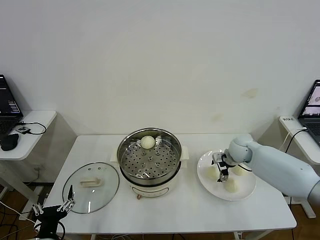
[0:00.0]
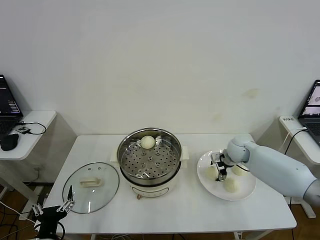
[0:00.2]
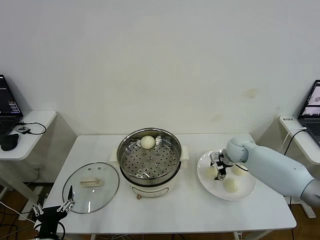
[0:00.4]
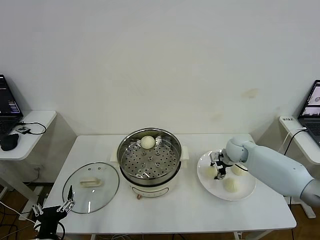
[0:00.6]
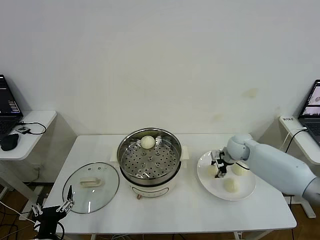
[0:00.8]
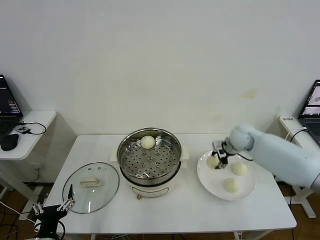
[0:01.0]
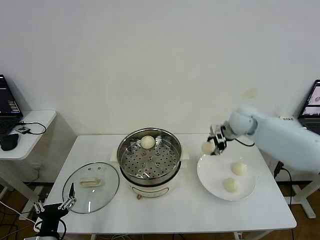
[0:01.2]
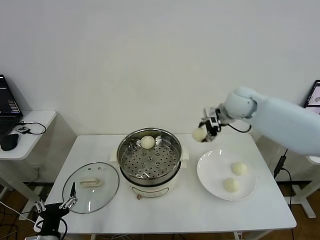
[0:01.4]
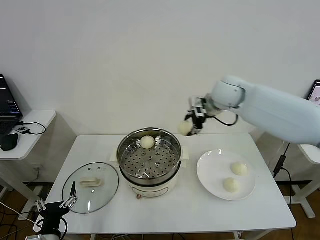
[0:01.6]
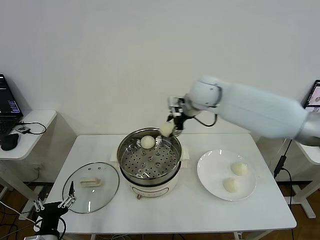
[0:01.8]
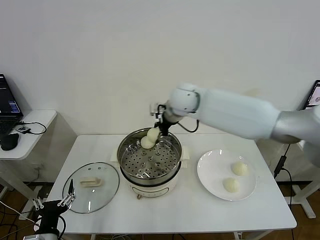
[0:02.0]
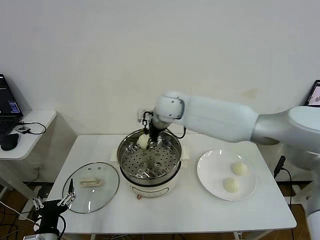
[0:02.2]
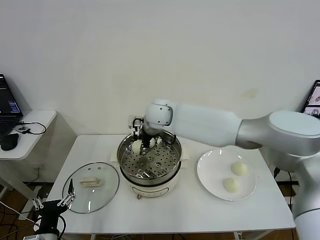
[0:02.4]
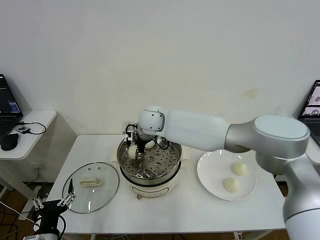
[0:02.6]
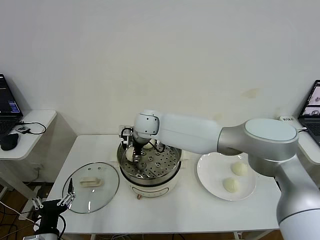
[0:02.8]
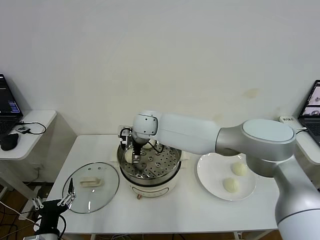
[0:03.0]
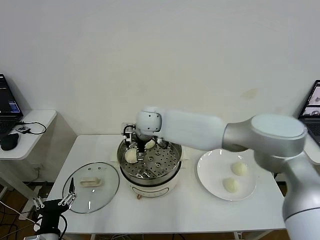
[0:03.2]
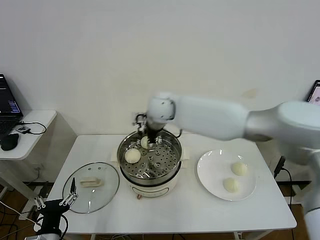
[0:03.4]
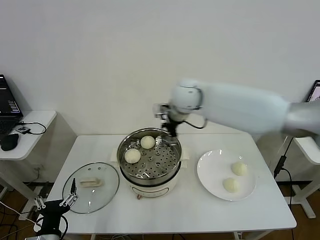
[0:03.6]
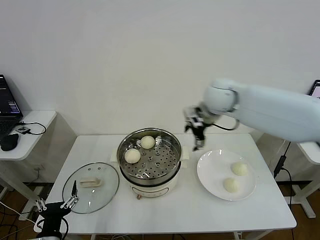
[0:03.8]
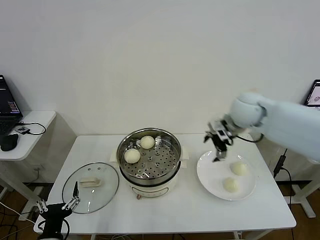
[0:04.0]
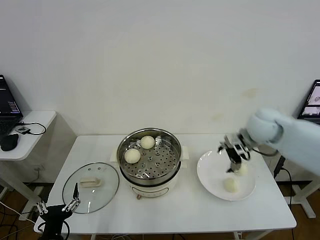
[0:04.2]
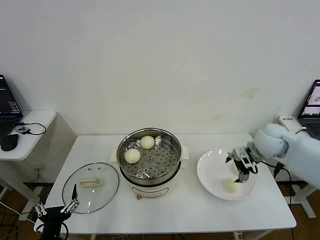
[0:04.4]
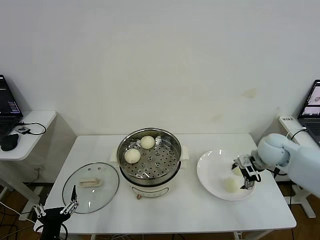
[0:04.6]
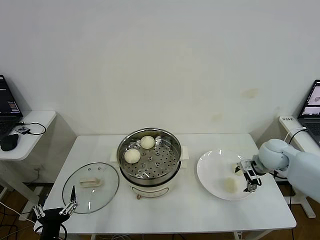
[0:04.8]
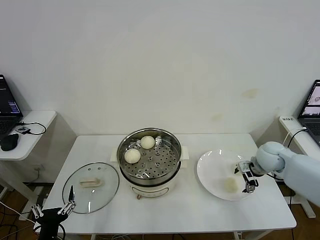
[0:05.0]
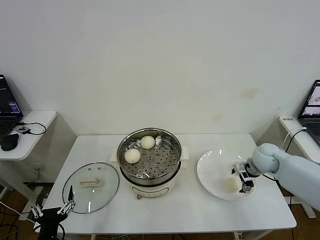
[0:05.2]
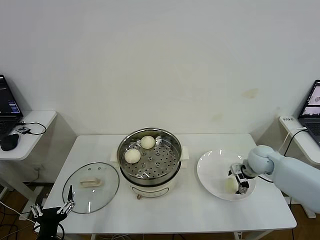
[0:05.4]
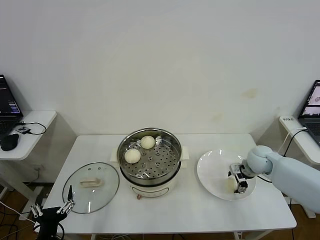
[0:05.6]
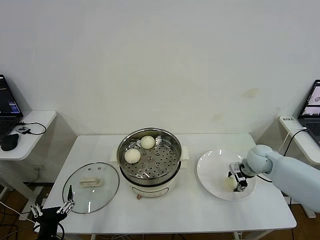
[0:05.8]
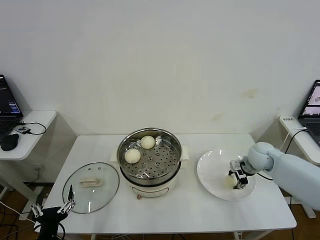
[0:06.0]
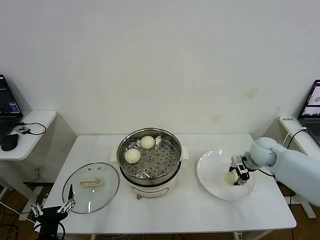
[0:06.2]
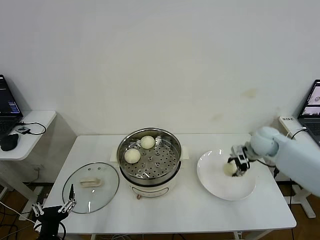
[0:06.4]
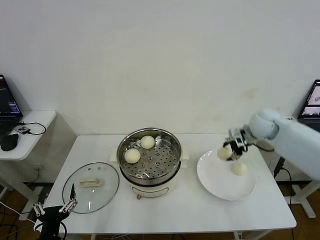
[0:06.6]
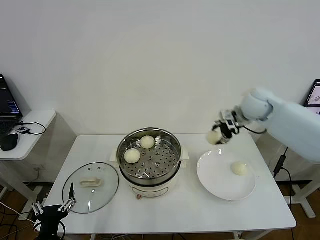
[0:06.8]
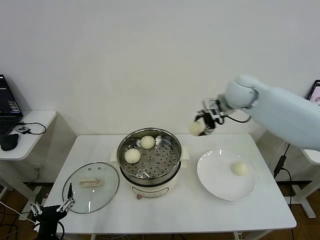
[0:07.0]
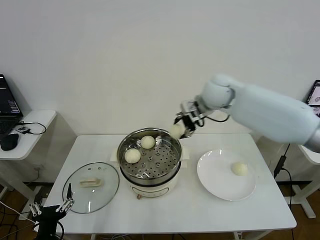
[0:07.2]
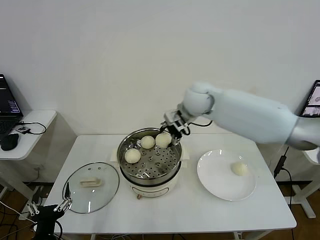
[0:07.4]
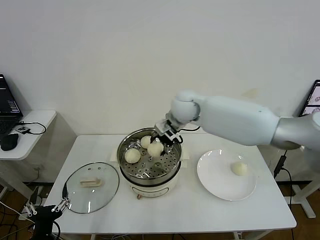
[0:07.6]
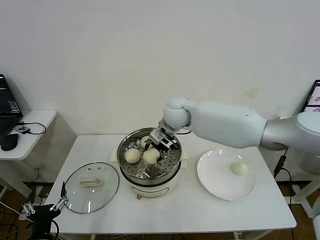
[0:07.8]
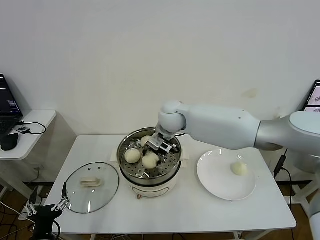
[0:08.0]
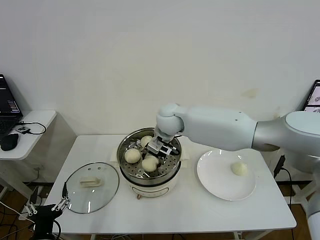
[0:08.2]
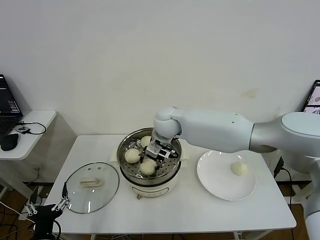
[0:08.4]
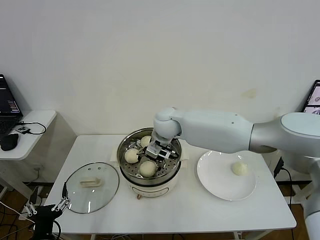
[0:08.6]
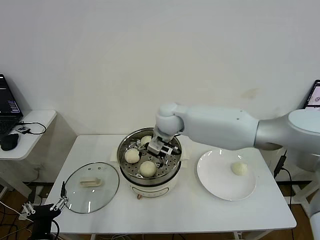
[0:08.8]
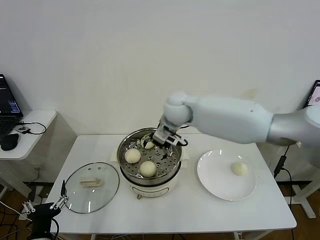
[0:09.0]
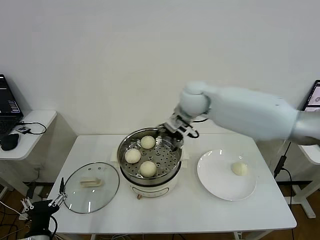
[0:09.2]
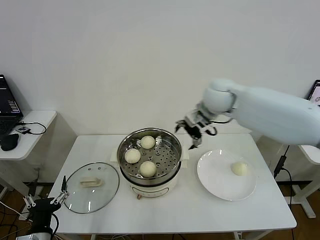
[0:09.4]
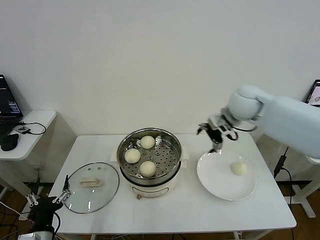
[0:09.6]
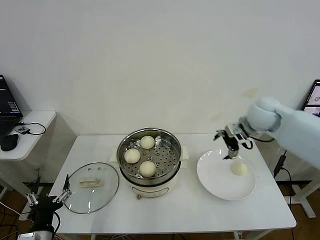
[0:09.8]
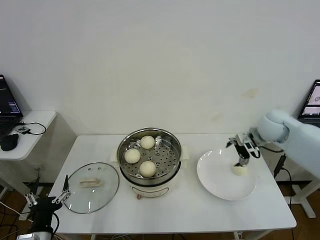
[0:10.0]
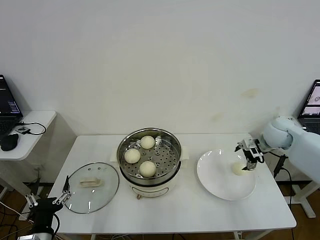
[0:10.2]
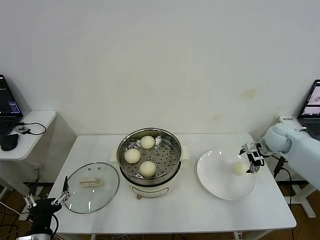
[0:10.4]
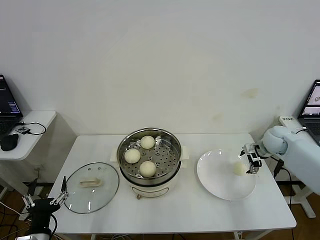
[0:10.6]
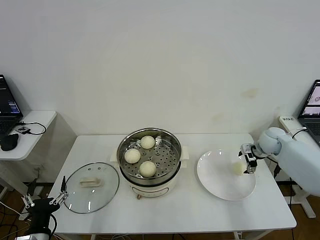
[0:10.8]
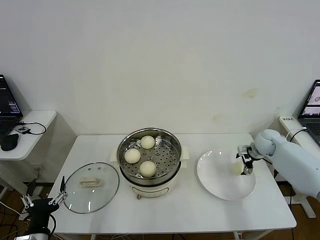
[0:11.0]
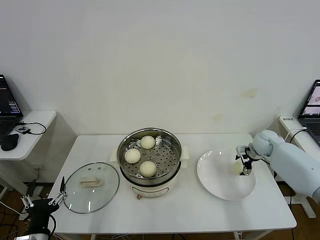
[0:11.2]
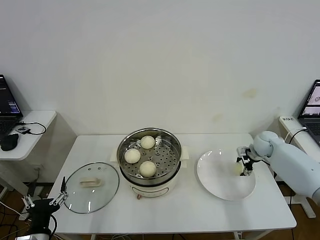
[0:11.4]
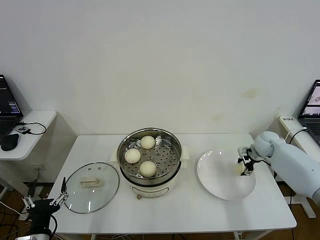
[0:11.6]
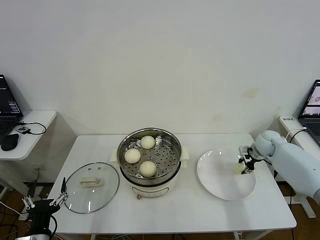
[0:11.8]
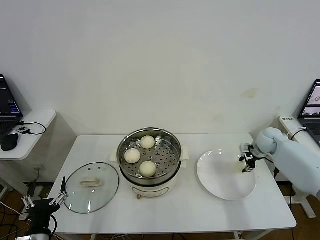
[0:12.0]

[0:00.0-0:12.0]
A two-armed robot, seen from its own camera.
Step, 0:00.6 to 0:03.2: Place the baozi on the steamer with right gripper.
Step, 0:03.4 to 0:05.8: Grasp the baozi in the plate with right gripper.
Step, 0:06.0 to 0:08.6: Place the baozi on the steamer with right gripper.
Step, 0:08.8 to 0:11.6: Grasp the baozi in the plate with right gripper.
0:00.0 to 0:01.6: The right gripper heads upward and to the left, covering about 25 cm, and closes.
0:01.6 to 0:03.0: The right gripper is displaced to the left and downward by some 25 cm, and opens.
0:03.0 to 0:04.4: The right gripper travels to the right by some 40 cm.
0:04.4 to 0:06.0: The right gripper shifts approximately 10 cm downward, and closes.
0:06.0 to 0:07.6: The right gripper moves to the left and upward, roughly 35 cm.
0:07.6 to 0:09.0: The right gripper opens its fingers.
0:09.0 to 0:10.4: The right gripper travels to the right by roughly 35 cm.
0:10.4 to 0:12.0: The right gripper goes some 5 cm downward, and closes.

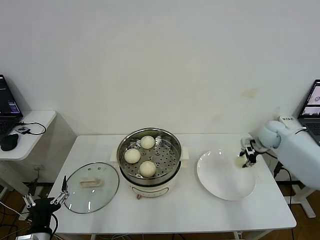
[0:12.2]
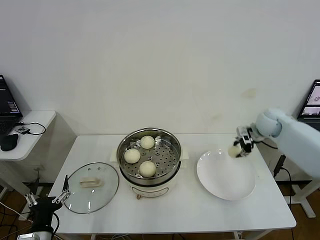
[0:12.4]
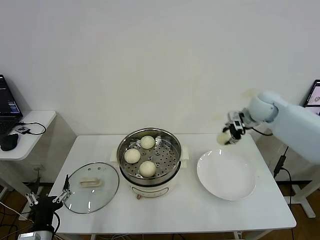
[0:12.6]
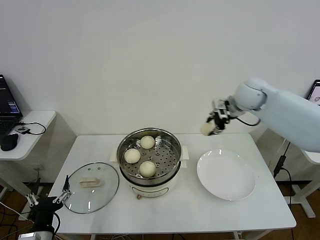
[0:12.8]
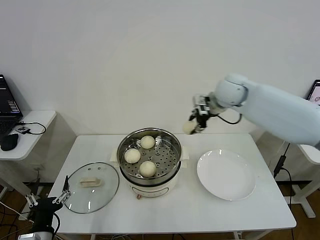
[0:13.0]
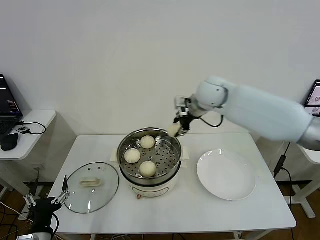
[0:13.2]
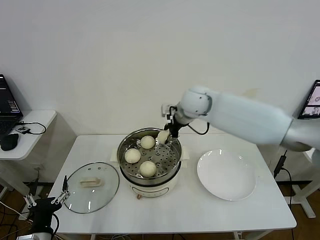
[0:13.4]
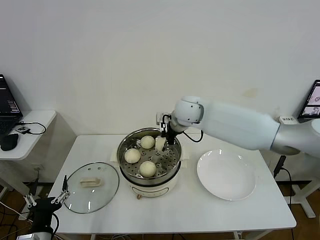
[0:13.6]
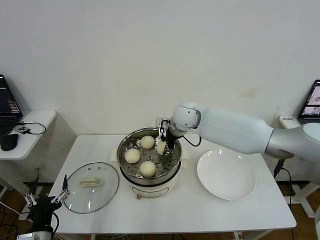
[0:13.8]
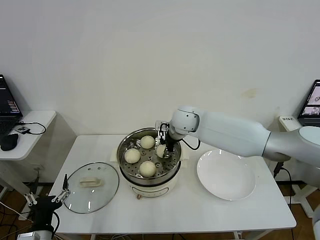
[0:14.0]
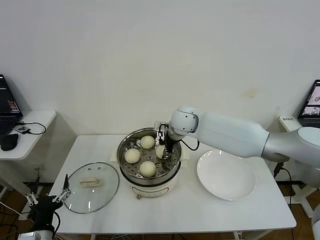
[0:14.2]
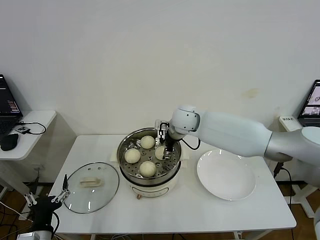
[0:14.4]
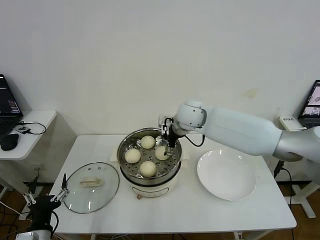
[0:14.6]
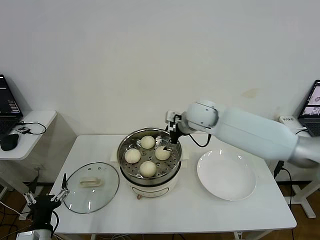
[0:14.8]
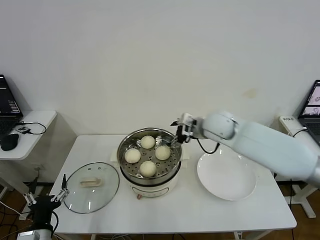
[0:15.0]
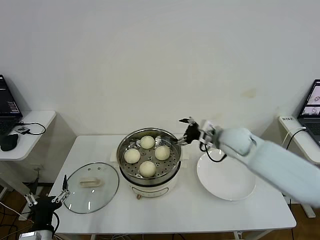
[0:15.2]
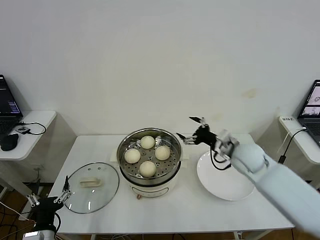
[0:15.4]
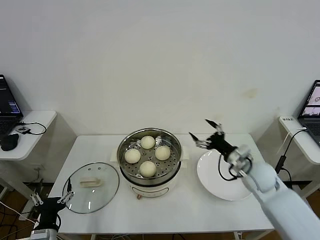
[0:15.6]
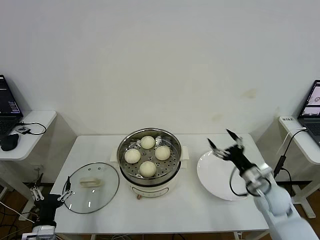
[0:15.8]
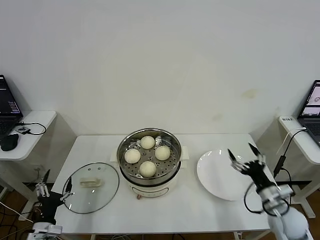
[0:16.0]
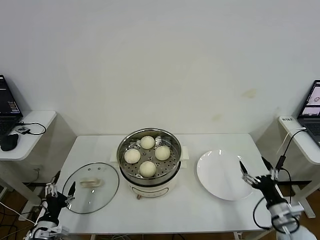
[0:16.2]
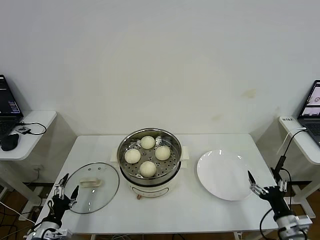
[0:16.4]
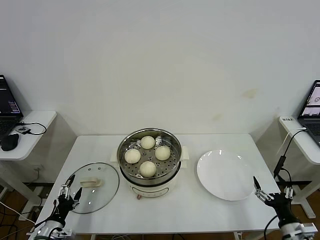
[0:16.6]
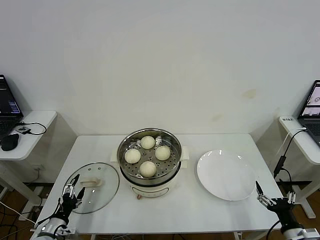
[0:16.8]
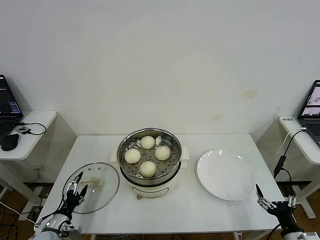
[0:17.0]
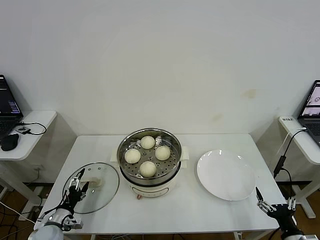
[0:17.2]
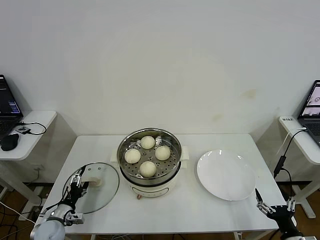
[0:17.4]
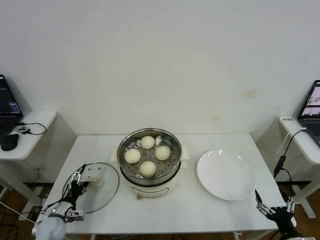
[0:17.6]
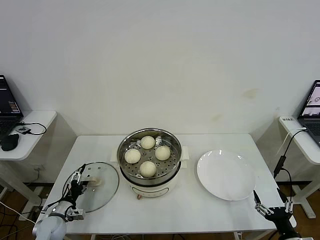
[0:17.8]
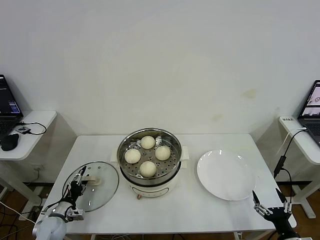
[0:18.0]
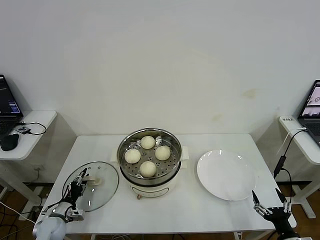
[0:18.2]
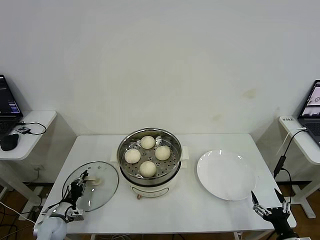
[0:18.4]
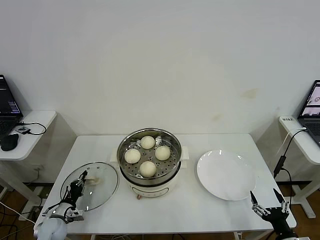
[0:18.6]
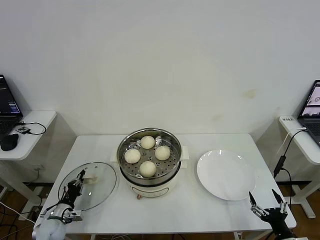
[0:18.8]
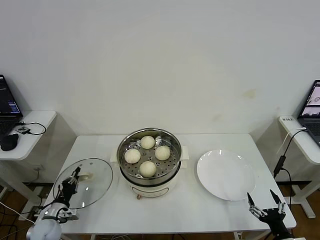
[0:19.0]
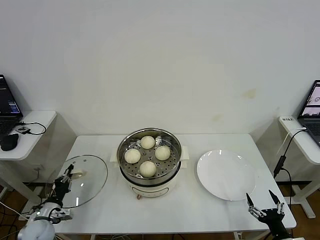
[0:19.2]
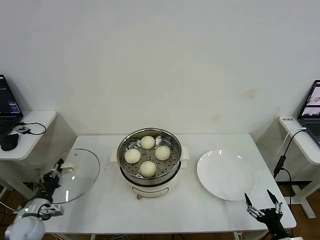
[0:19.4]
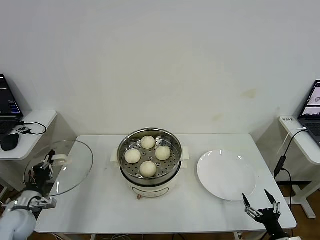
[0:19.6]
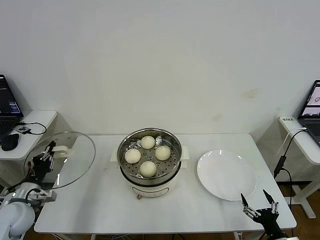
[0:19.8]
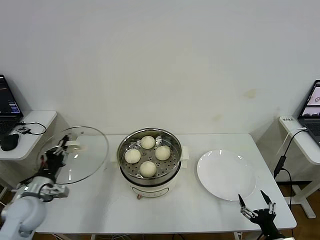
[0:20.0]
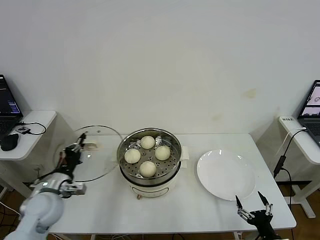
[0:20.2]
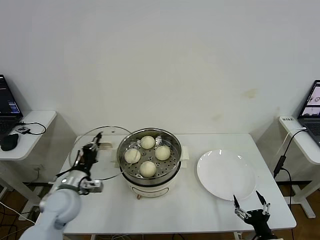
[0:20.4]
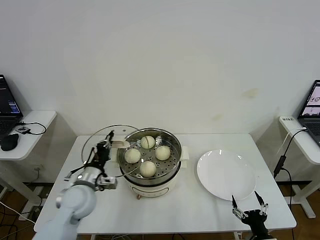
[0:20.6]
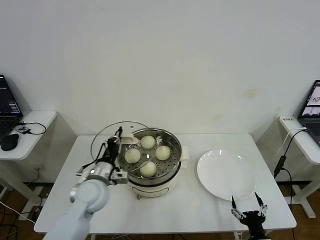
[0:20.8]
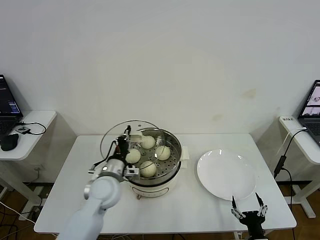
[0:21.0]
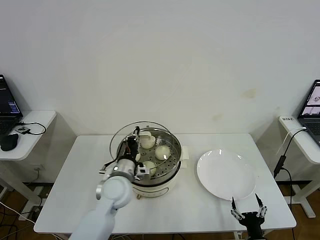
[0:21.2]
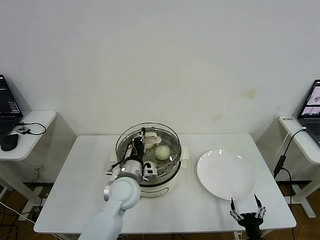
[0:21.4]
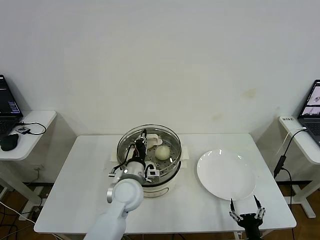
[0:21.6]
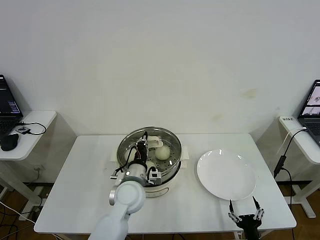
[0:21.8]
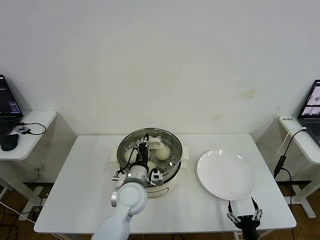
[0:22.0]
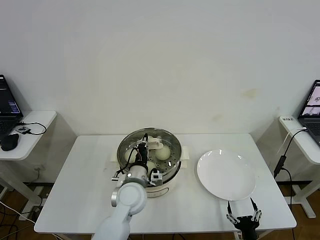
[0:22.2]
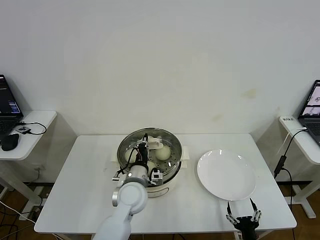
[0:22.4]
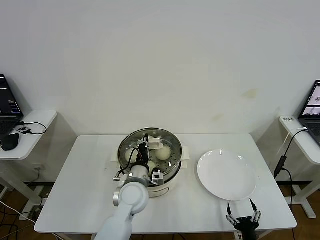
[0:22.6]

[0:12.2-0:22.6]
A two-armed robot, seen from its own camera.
Step, 0:12.2 to 0:14.4: Place the baozi on the steamer with right gripper.
Step, 0:14.6 to 0:18.6: Grasp the pot lid with left gripper.
0:12.2 to 0:13.6: The right gripper shifts approximately 35 cm to the left.
0:13.6 to 0:15.2: The right gripper heads to the right, backward and downward, covering about 15 cm, and opens up.
0:15.2 to 0:16.6: The right gripper moves backward, downward and to the right, approximately 40 cm, while the left gripper travels downward, to the left and forward by some 10 cm.
0:16.6 to 0:18.2: The left gripper is displaced forward by approximately 10 cm, and closes up.
0:18.2 to 0:19.6: The left gripper heads upward, covering about 10 cm, and closes its fingers.
0:19.6 to 0:21.2: The right gripper shifts approximately 10 cm to the left. Meanwhile the left gripper travels to the right by some 30 cm.
0:21.2 to 0:22.6: The left gripper goes about 5 cm to the right.
